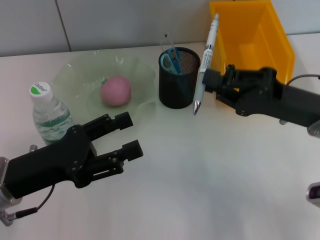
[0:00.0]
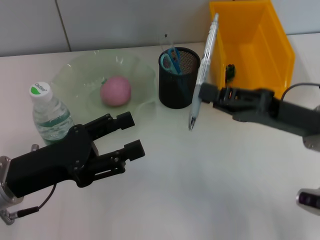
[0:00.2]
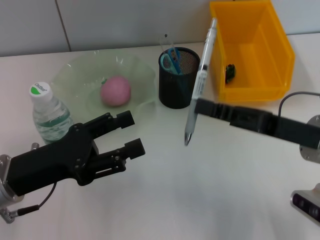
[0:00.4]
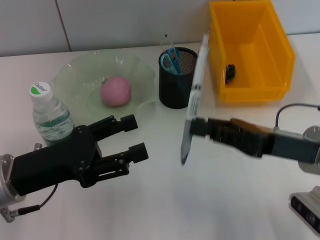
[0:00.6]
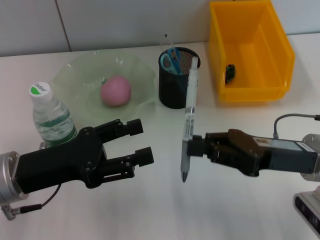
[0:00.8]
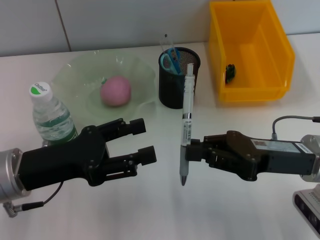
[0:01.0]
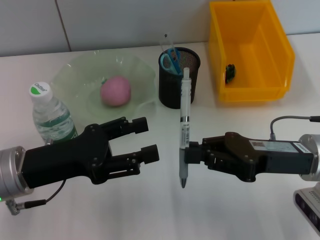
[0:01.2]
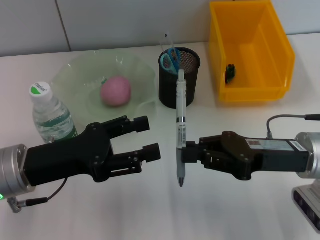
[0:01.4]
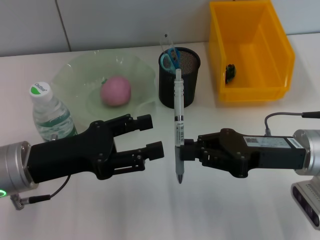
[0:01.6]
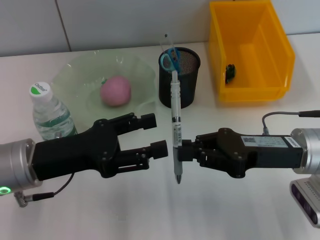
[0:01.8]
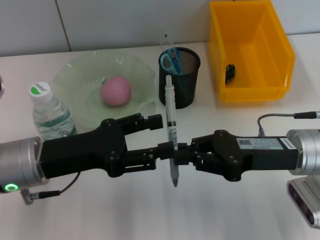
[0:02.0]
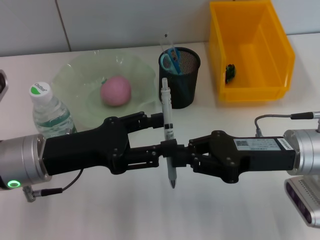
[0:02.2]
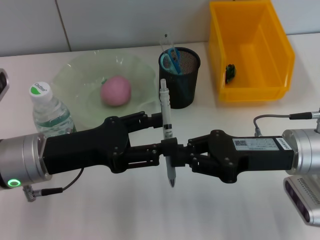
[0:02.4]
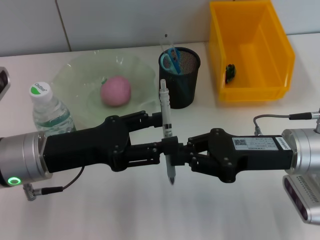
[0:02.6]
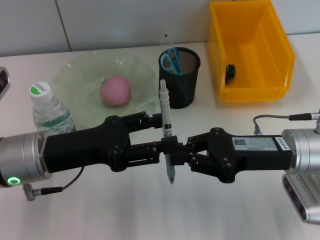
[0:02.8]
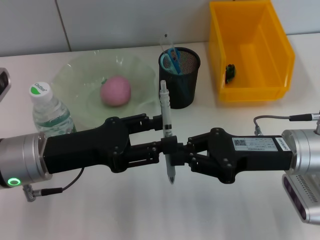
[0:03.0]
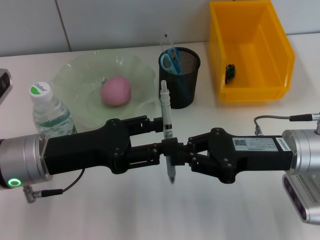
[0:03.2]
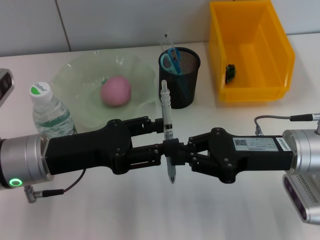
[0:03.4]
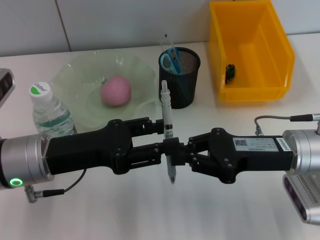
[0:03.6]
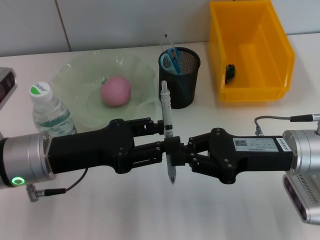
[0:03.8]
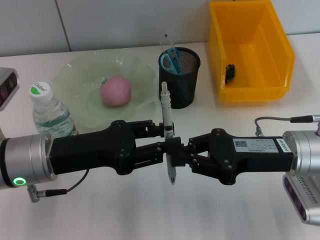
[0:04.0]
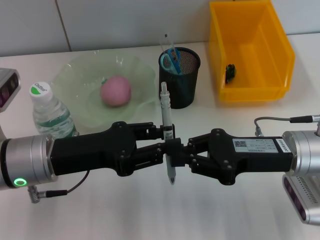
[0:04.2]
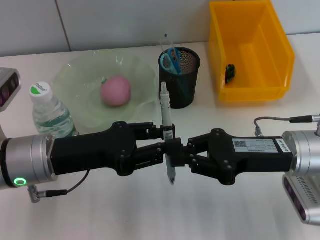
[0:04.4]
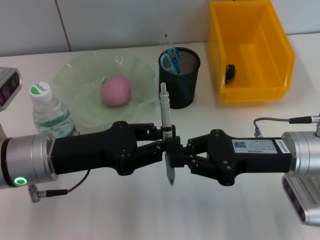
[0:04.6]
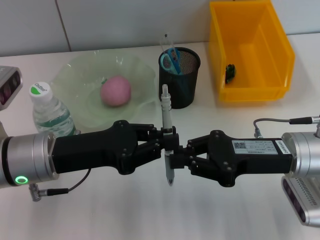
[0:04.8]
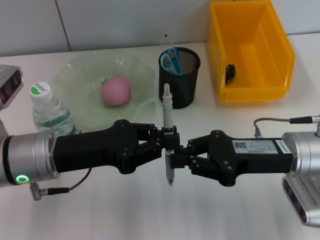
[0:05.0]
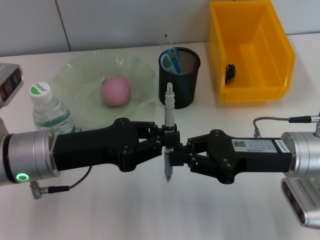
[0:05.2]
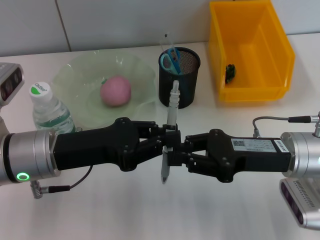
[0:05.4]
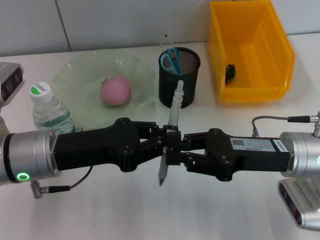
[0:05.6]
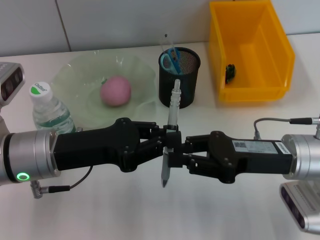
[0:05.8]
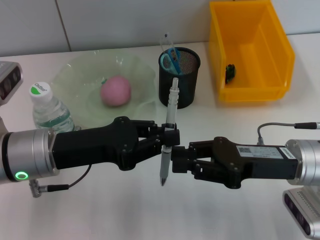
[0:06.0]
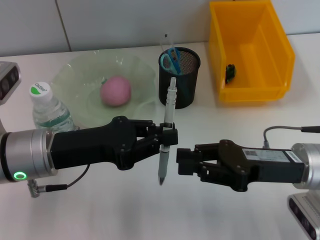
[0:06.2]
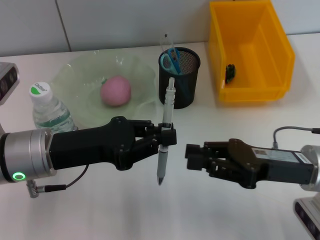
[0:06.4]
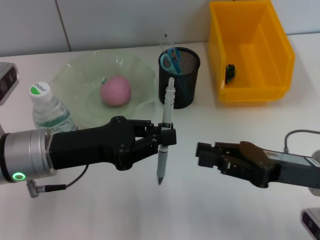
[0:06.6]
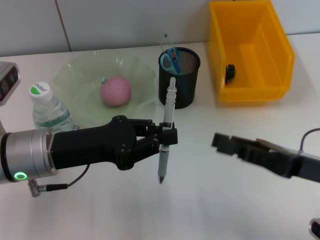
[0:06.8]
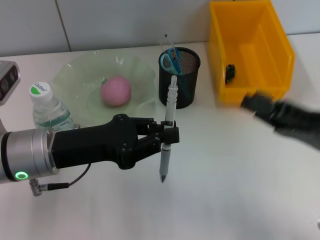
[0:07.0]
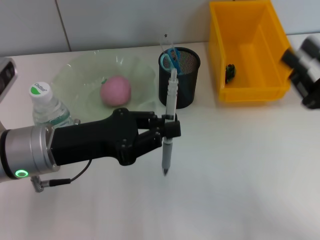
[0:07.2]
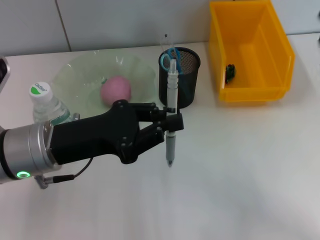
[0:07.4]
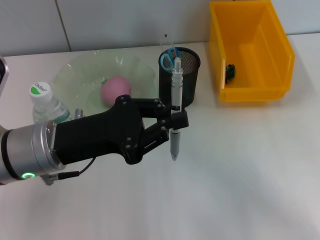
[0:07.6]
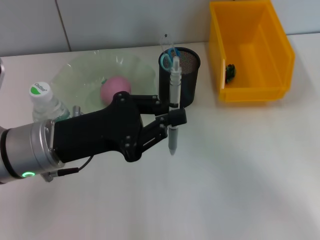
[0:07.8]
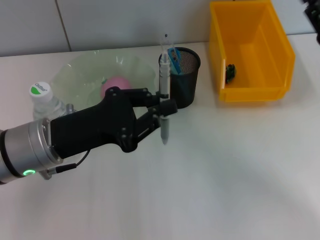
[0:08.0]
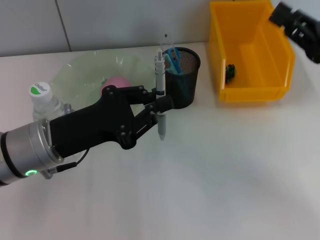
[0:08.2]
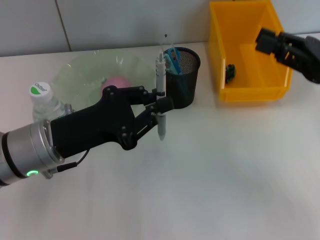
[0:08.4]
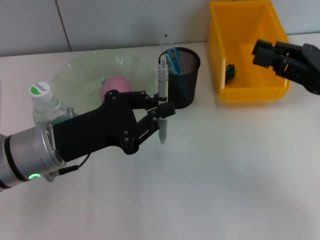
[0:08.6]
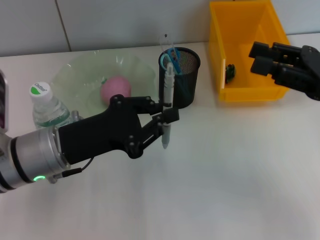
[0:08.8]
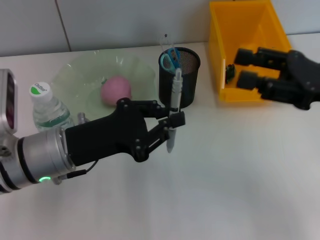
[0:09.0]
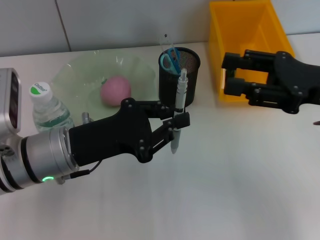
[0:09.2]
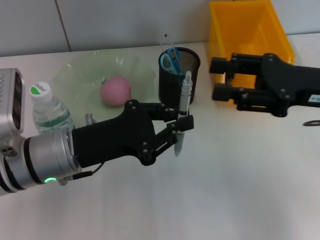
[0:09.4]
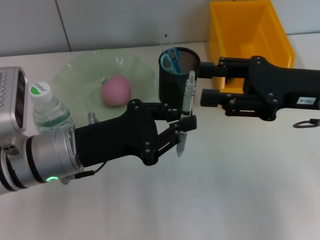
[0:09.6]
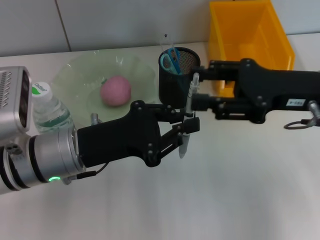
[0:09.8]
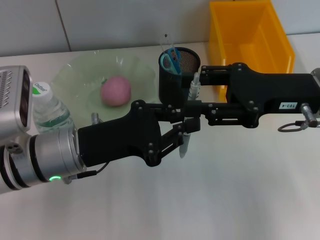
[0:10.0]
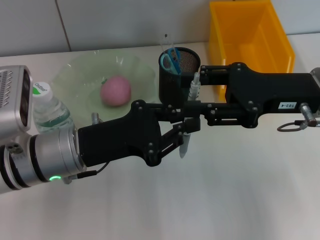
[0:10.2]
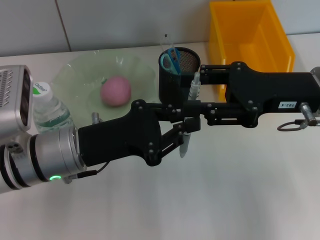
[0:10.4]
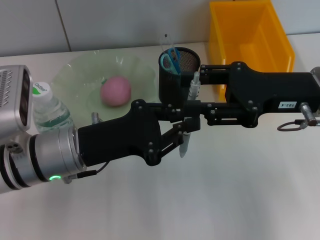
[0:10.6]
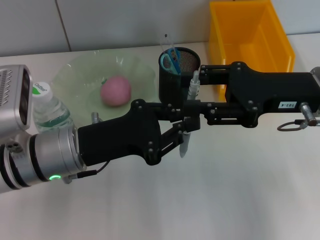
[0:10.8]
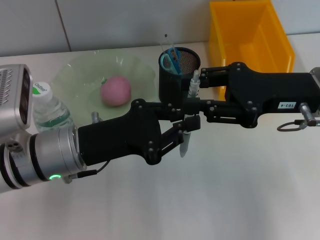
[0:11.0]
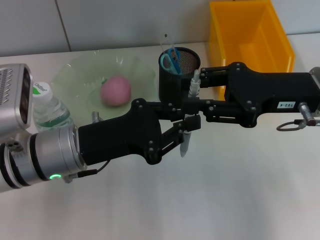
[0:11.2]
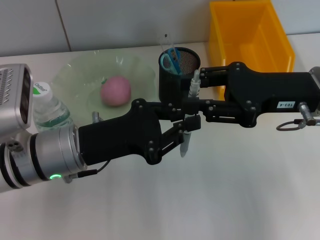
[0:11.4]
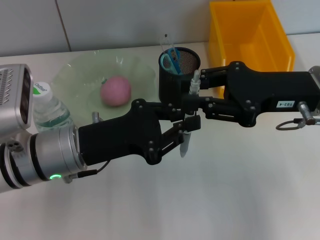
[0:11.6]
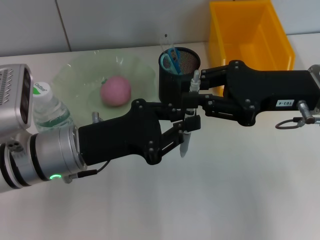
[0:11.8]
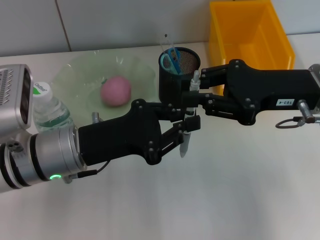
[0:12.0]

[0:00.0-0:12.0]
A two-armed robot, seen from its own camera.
Step, 0:00.0 to 0:05.8: Pass the gray spring-action pen from the right hand to the left hand.
0:01.6 to 0:03.0: There are only small adjustments of the grippers.
0:03.0 to 0:04.4: The left gripper closes its fingers.
0:04.4 to 0:06.0: The left gripper closes its fingers.
0:06.0 to 0:07.6: The right gripper moves to the right, some 10 cm.
0:07.6 to 0:09.0: The right gripper shifts by some 5 cm.
0:09.0 to 0:10.4: The right gripper is displaced to the left by approximately 5 cm.
0:10.4 to 0:12.0: The right gripper closes.

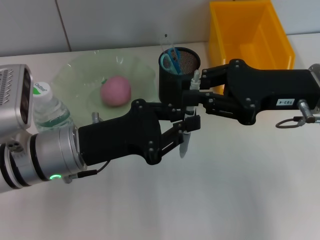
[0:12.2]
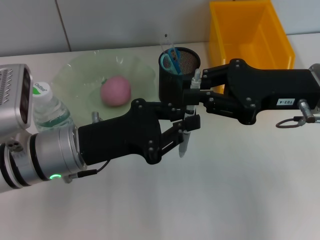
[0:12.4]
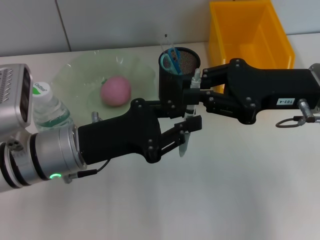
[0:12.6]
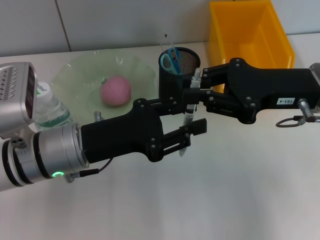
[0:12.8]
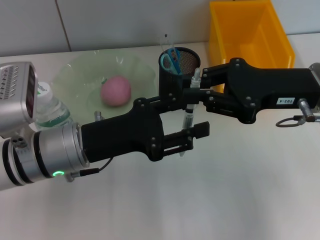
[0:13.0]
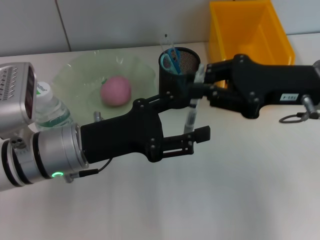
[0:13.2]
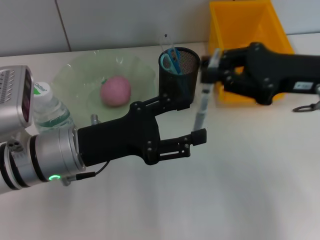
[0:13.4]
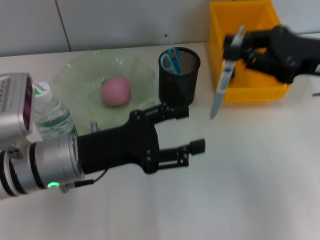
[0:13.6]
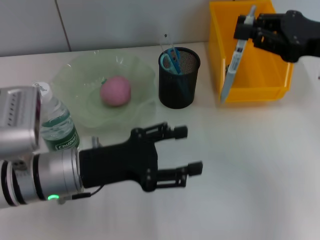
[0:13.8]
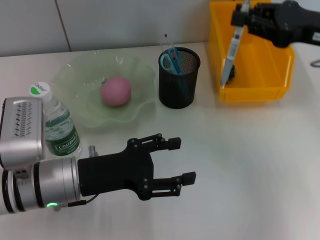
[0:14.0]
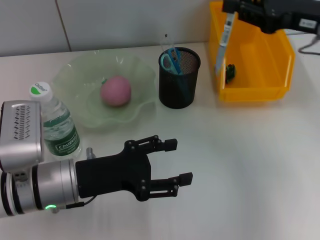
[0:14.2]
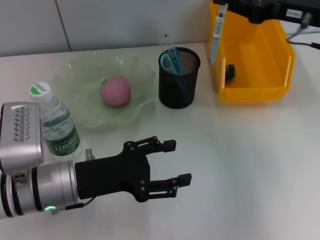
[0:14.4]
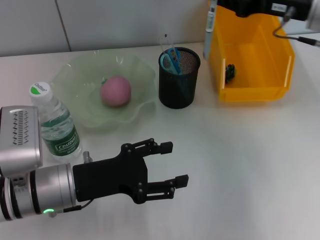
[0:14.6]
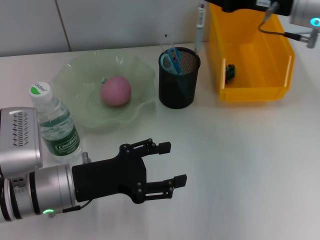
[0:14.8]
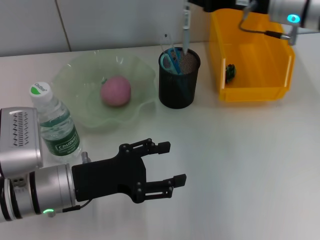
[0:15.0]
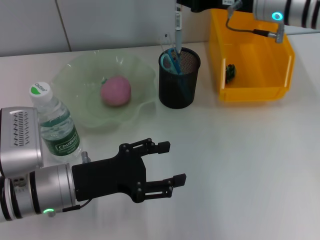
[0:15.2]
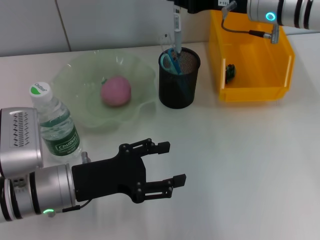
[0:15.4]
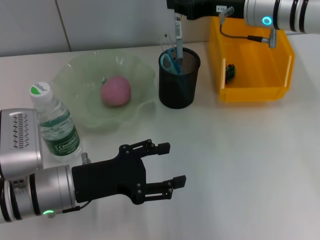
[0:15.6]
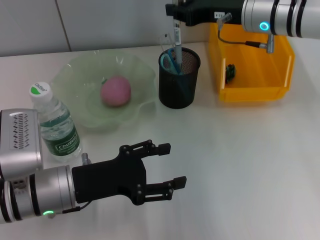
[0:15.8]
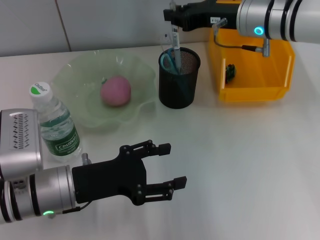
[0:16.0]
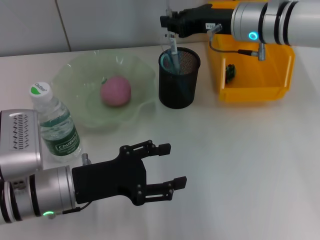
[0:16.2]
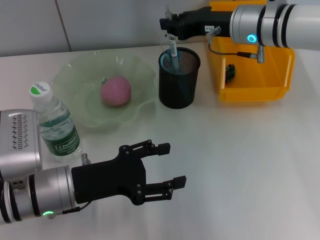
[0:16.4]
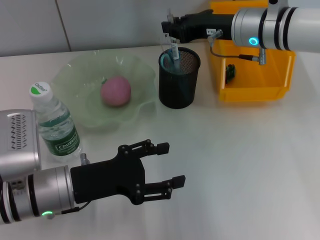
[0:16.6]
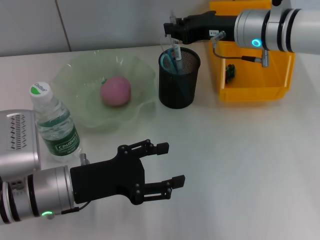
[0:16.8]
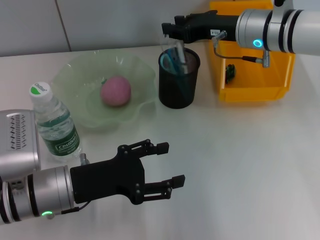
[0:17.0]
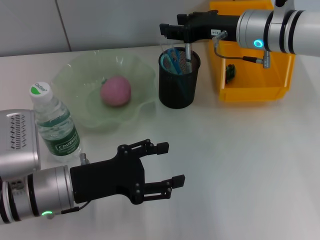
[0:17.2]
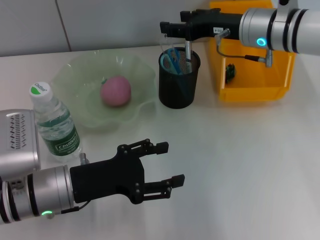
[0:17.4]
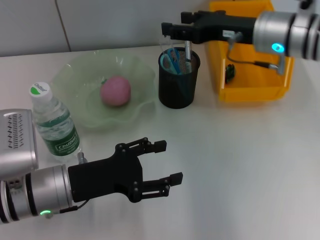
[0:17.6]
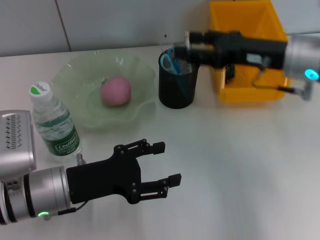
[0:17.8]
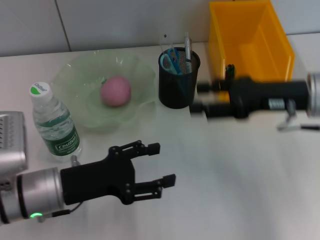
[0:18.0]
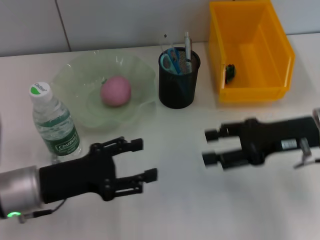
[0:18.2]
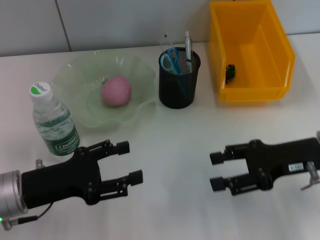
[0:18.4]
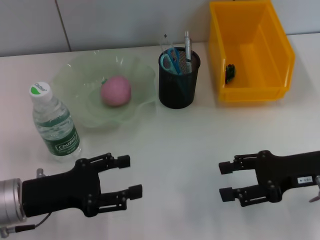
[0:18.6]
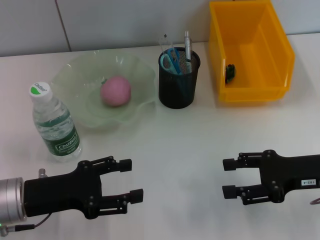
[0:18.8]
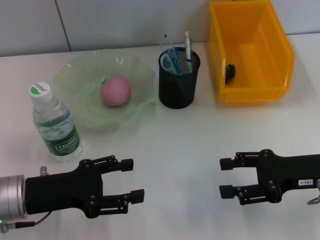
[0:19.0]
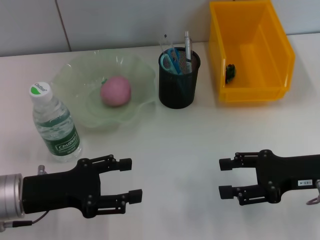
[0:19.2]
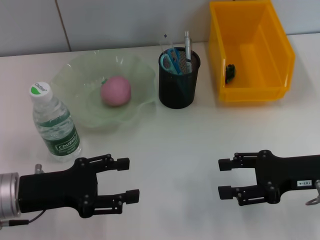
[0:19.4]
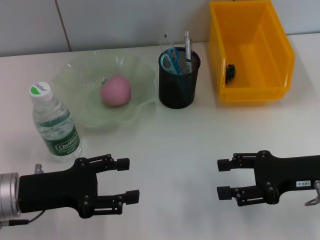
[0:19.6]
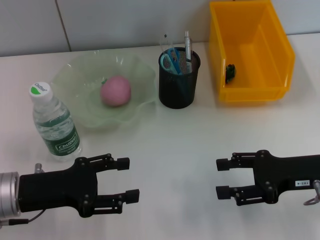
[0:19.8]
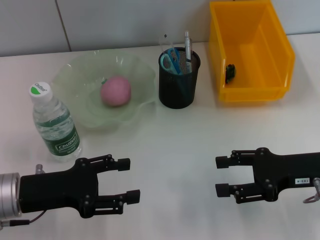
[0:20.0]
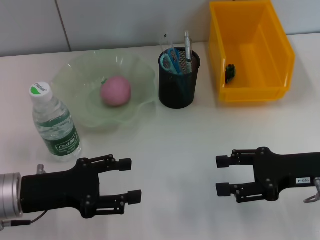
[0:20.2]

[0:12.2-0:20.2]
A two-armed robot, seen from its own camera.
Step, 0:13.4 to 0:17.0: Place the gray spring-action pen into the pen holder with the right hand.
0:12.2 to 0:13.8: The left gripper opens up, while the right gripper shifts some 5 cm to the right.
0:13.8 to 0:15.4: The right gripper travels forward and to the left by about 15 cm.
0:15.4 to 0:17.0: There are only small adjustments of the grippers.
0:17.0 to 0:18.6: The right gripper goes about 20 cm backward, to the right and downward, and opens its fingers, while the left gripper is displaced to the left by some 5 cm.
0:18.6 to 0:20.2: The grippers stay close to where they were, moving slightly.
